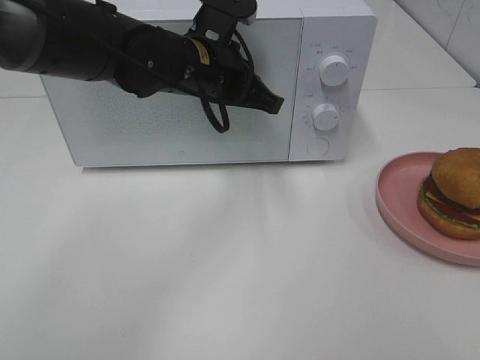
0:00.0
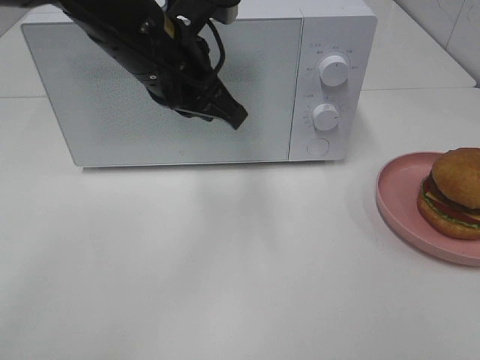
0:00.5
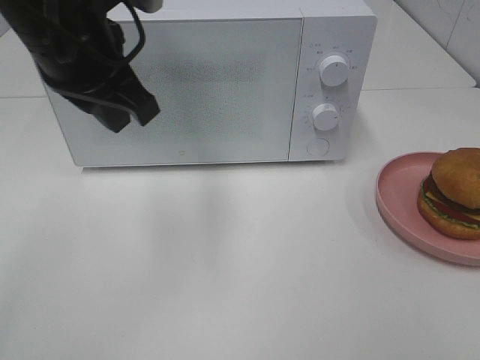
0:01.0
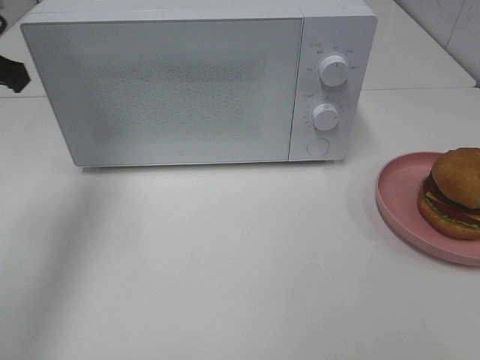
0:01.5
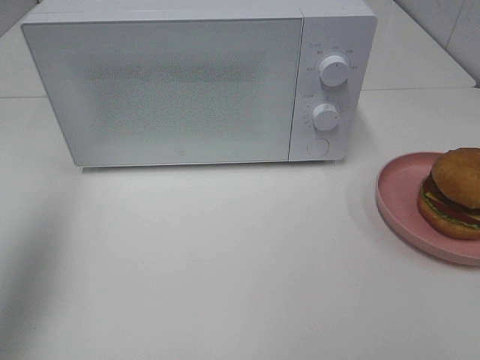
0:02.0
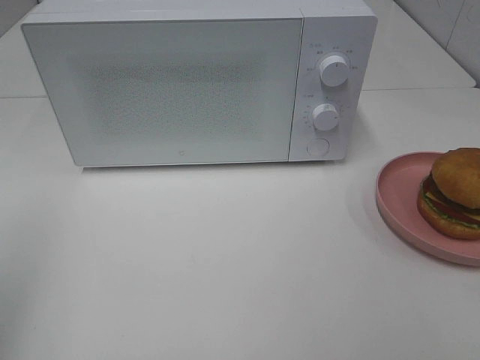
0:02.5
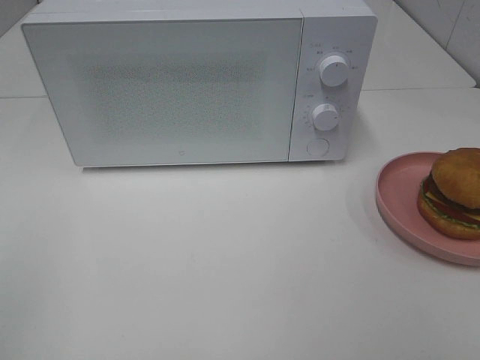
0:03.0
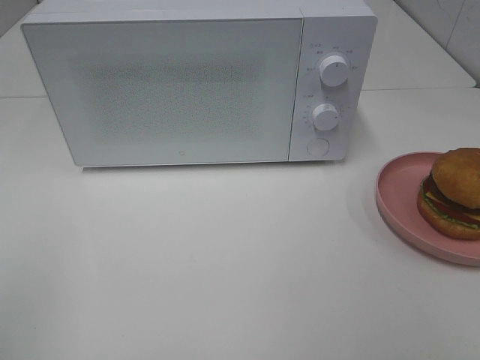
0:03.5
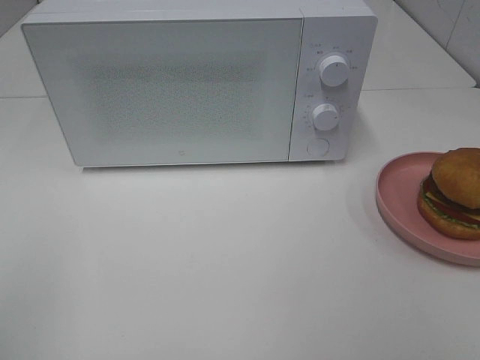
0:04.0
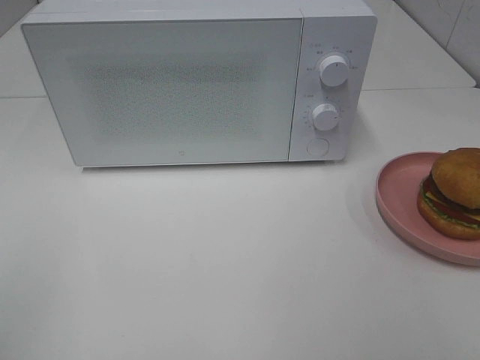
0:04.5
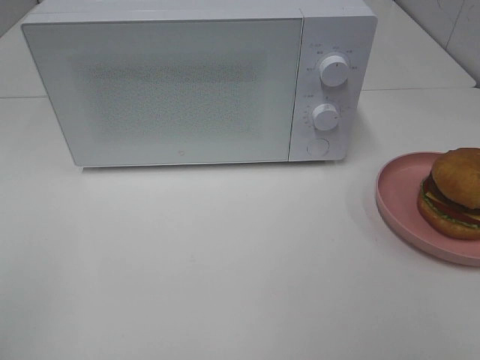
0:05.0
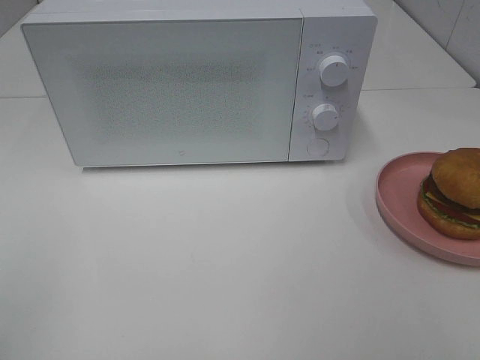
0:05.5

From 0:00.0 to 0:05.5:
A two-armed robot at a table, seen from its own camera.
Task of the whole recording: Heat the burger.
From 0:00.0 to 0:02.0: The left gripper travels to the left, backward and upward by some 35 cm, and closes up.
From 0:02.0 to 0:03.5: The left gripper is displaced backward by about 20 cm, and closes up.

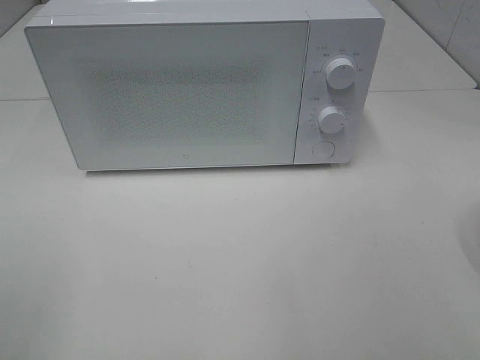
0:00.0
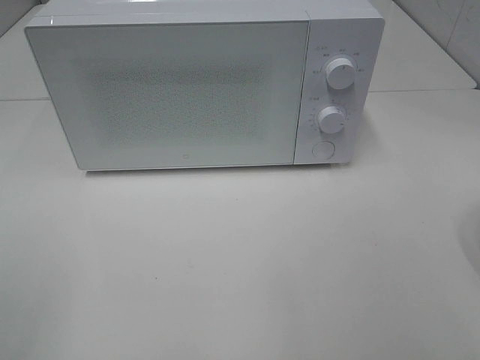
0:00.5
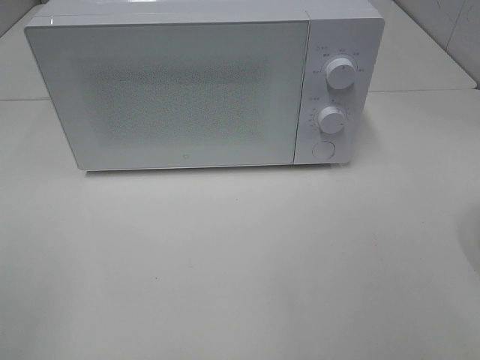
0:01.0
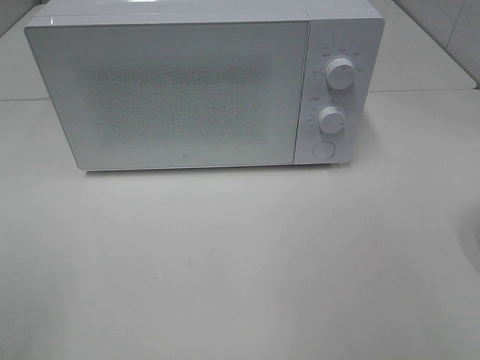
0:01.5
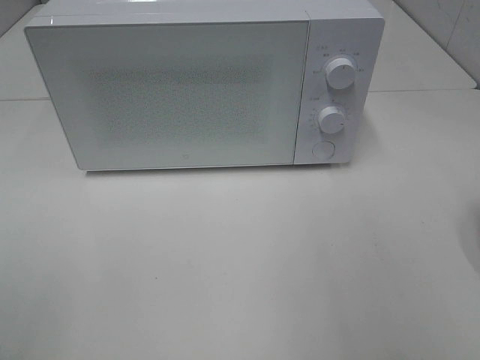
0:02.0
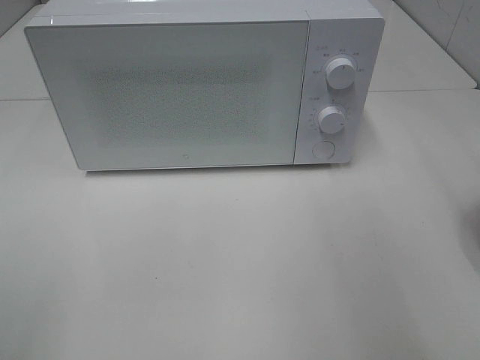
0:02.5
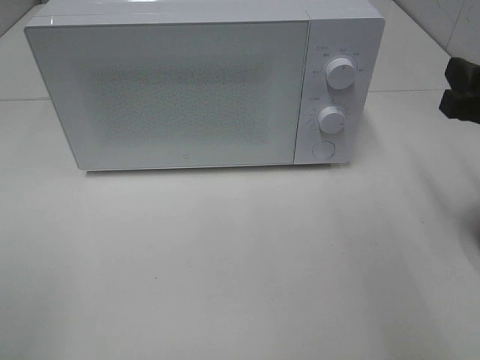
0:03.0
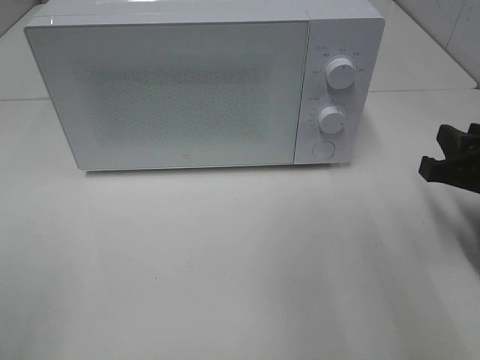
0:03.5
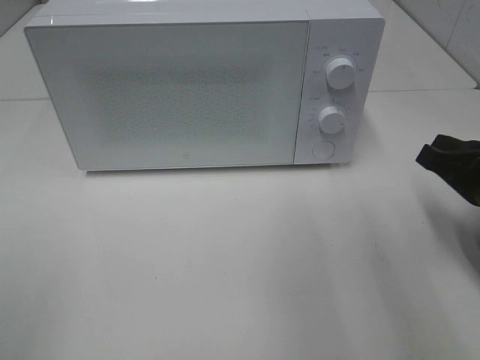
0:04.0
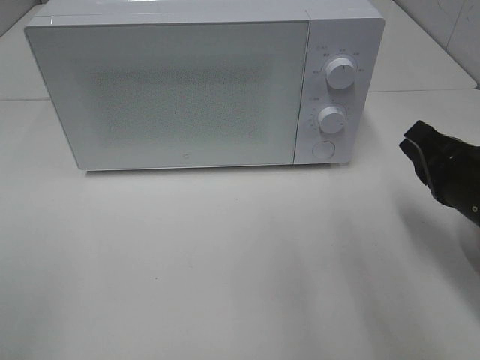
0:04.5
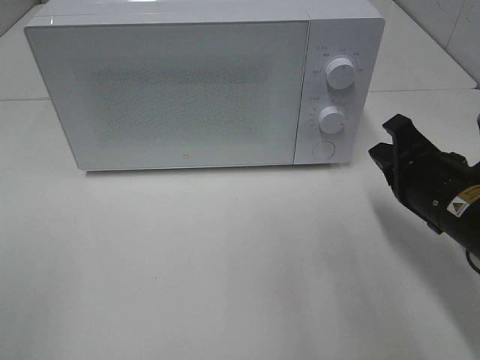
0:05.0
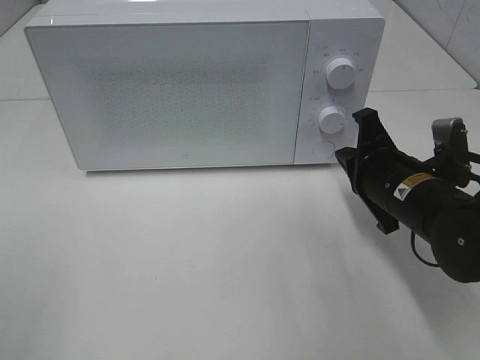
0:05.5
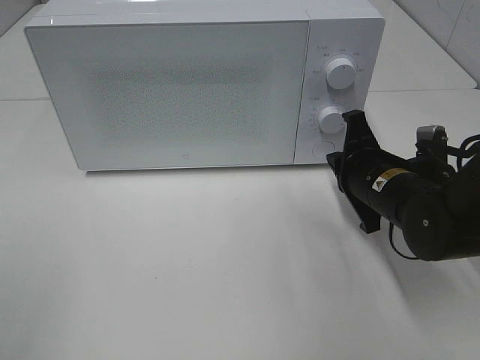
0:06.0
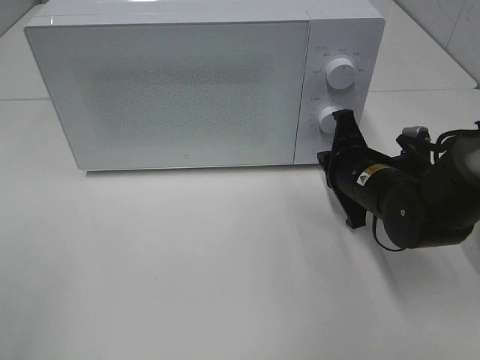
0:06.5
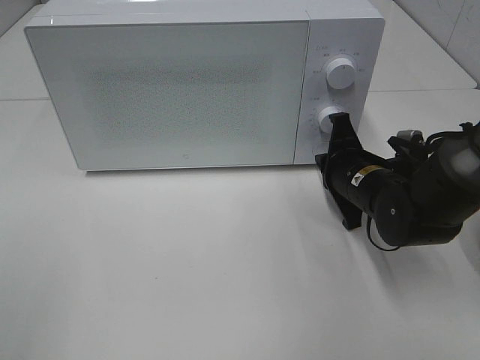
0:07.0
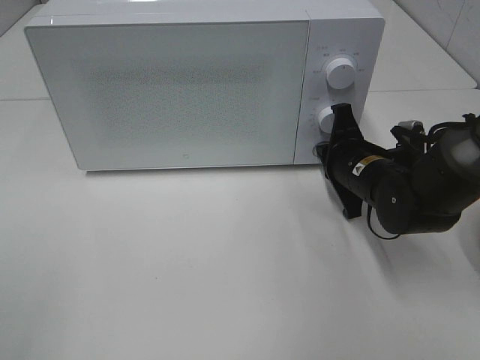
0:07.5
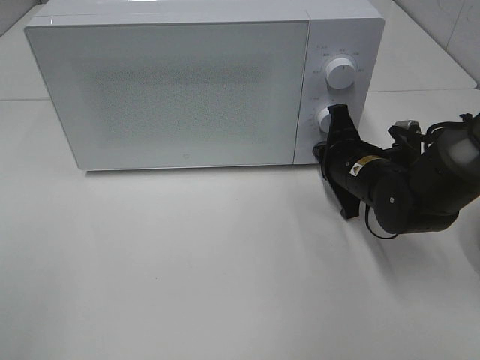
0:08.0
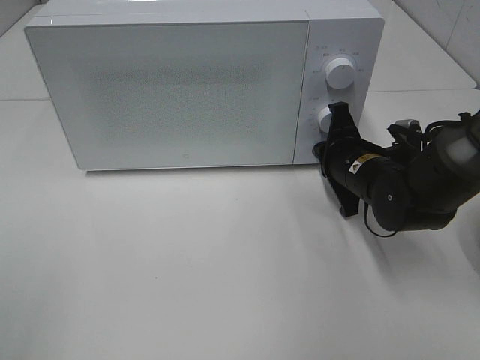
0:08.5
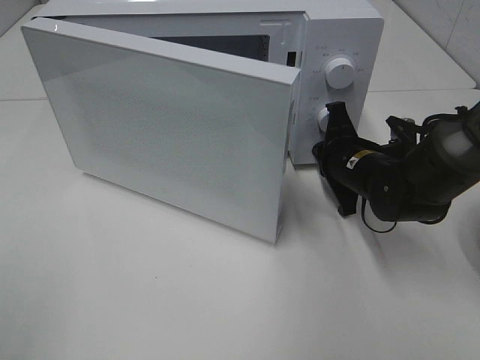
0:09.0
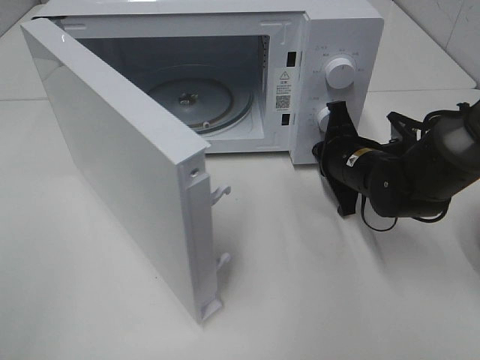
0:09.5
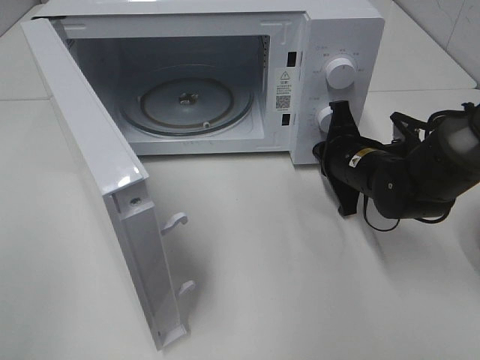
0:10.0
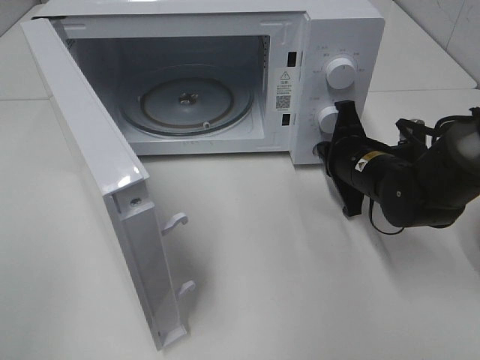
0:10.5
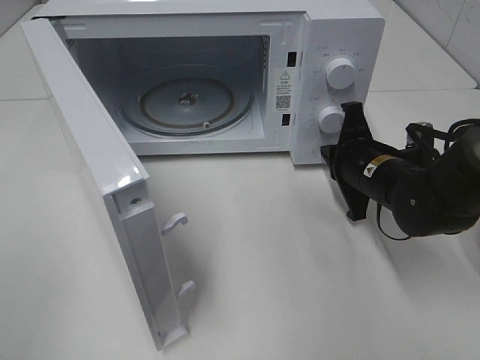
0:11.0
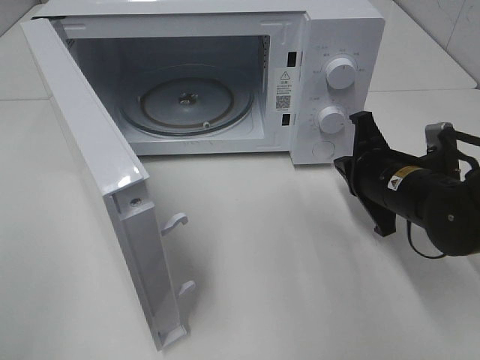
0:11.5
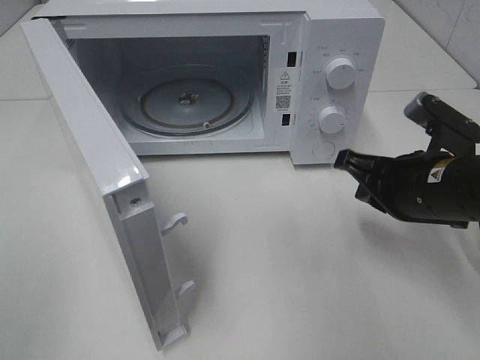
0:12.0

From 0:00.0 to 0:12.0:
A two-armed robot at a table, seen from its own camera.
Task of the whole recording: Heat the burger.
Step, from 0:00.0 to 0:11.0: Right hand: press the switch.
From 0:02.0 to 0:04.0: The right gripper travels downward and forward by approximately 20 cm, and closes its fingers.
From 0:04.0 to 0:06.0: The right gripper moves to the left, forward and downward, some 15 cm.
From 0:06.0 to 0:08.0: There are only small adjustments of the grippers.
From 0:10.0 to 0:12.0: The right gripper travels backward and upward by roughly 10 cm.

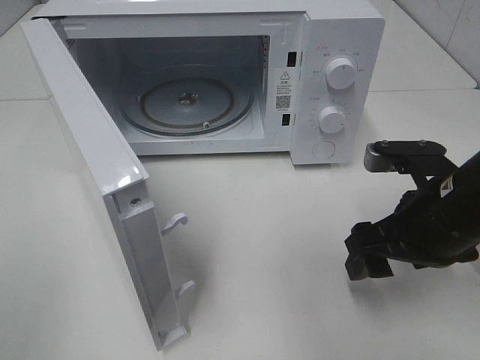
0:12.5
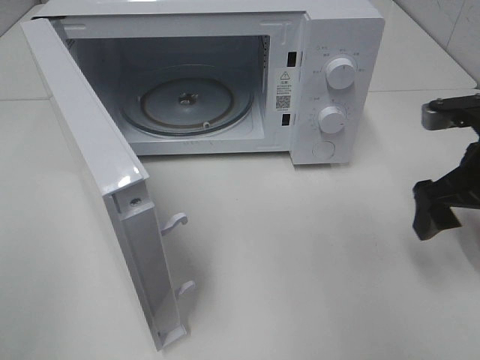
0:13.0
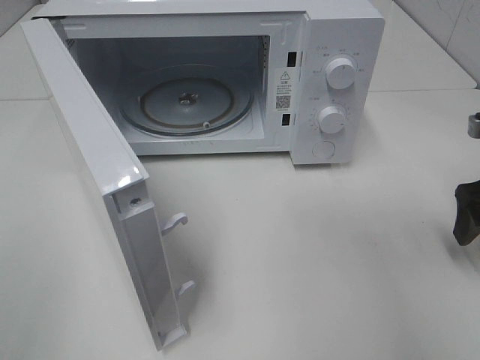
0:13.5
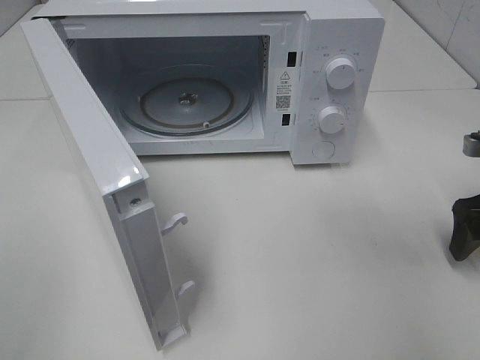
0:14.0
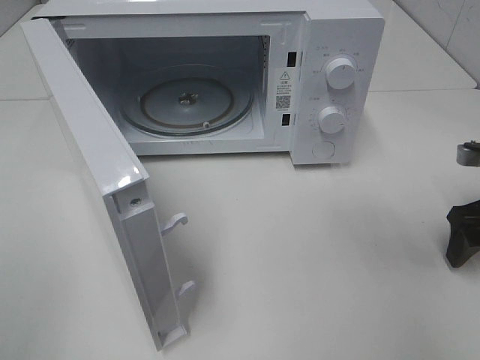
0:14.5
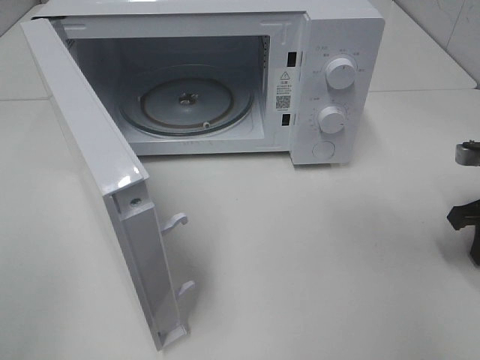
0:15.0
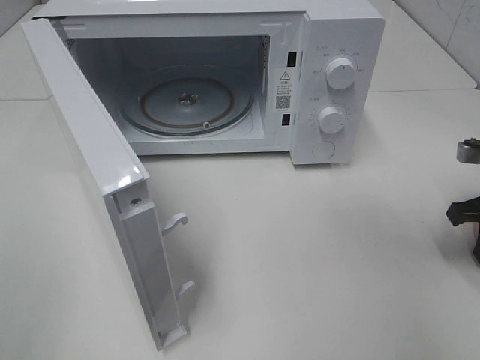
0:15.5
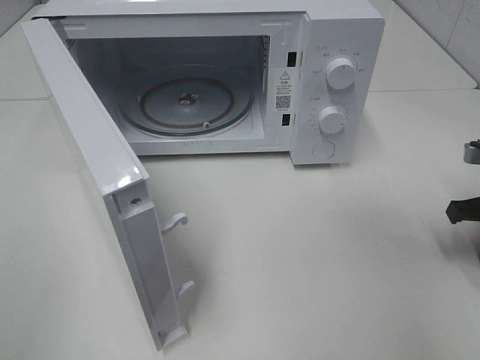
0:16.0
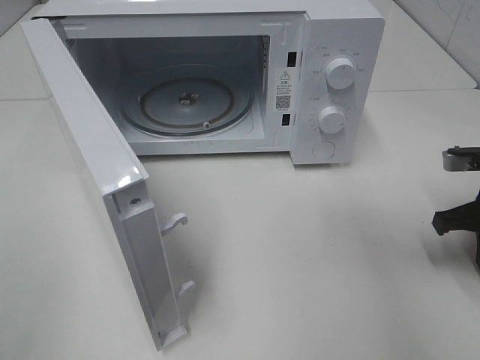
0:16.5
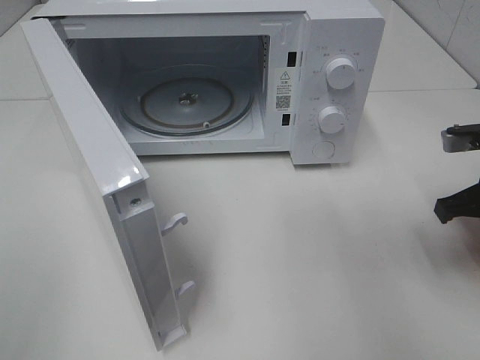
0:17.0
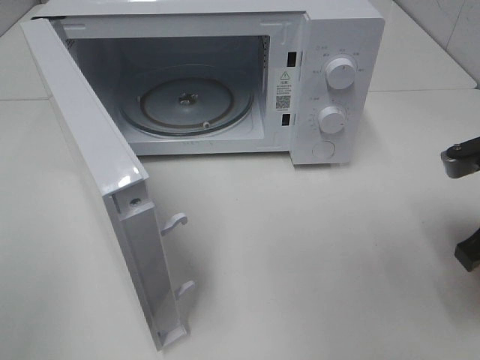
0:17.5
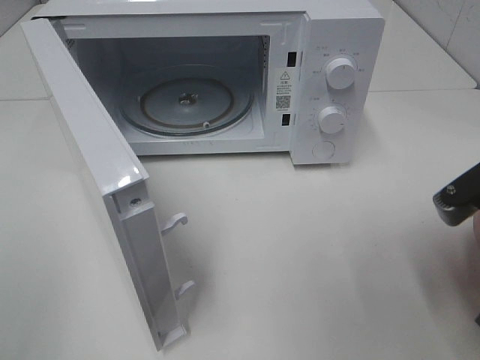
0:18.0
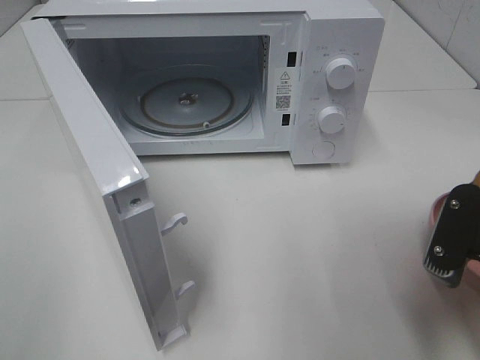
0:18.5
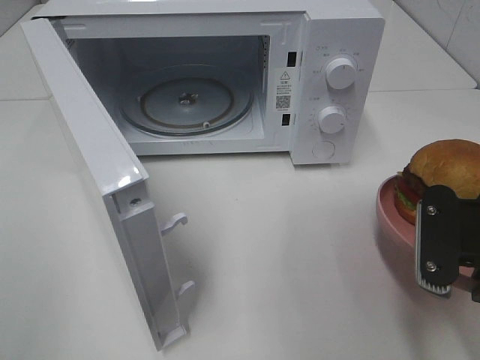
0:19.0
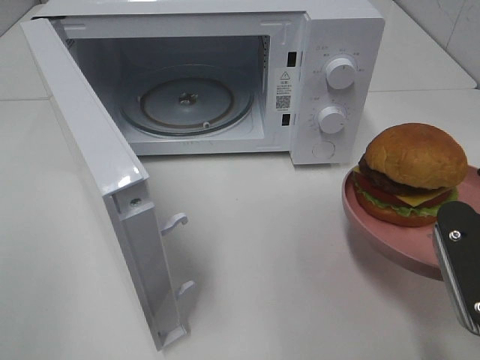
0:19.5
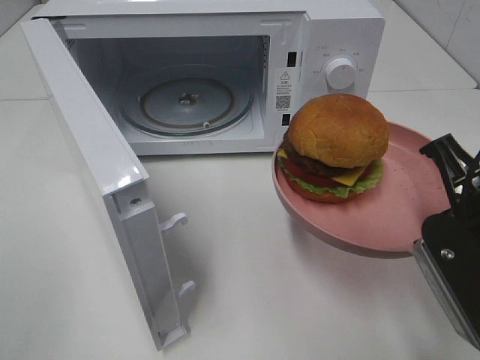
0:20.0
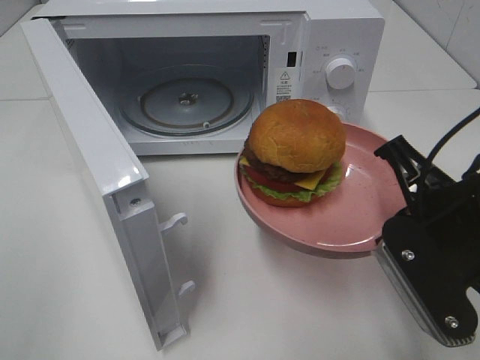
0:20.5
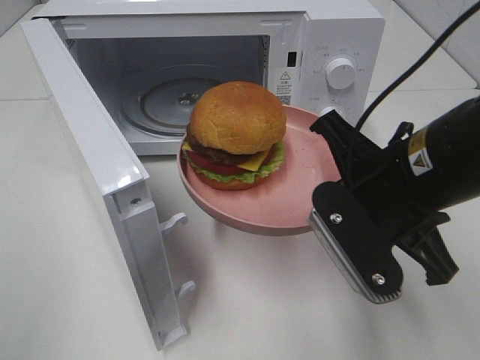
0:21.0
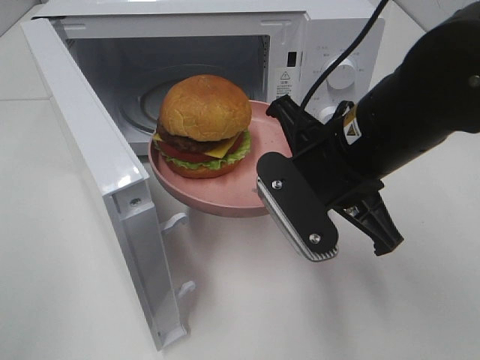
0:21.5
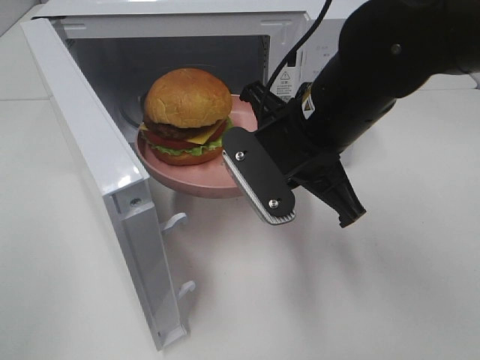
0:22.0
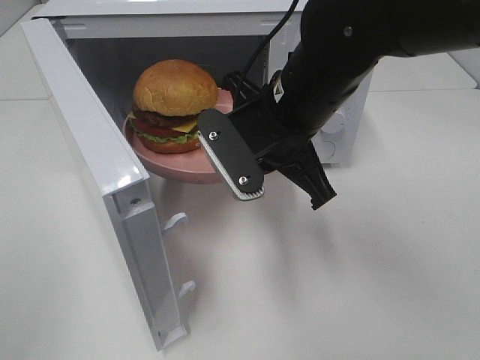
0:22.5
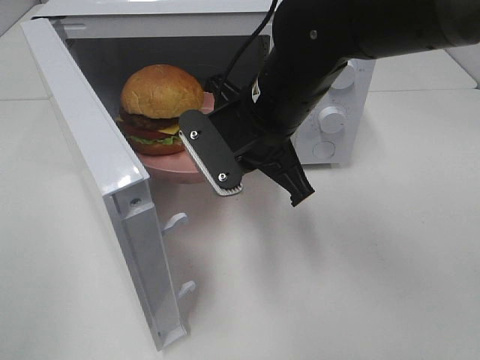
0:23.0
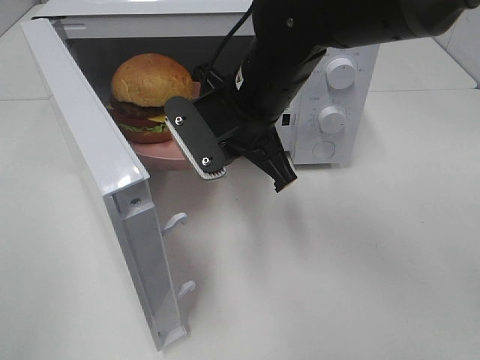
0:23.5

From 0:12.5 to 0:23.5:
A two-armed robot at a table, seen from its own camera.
Task of the whole recording: Heat the burger.
Step, from 0:12.5 to 0:16.5: Right hand: grab the plate with the hamburger.
From 0:12.5 to 0:14.5: The right gripper shifts roughly 15 cm to the right and forward.
From 0:14.5 to 0:16.0: The right gripper closes its fingers.
From 0:16.0 to 0:18.0: The right gripper goes about 15 cm backward, to the left and upward.
From 0:18.0 to 0:20.0: The right gripper shifts by some 5 cm.
From 0:20.0 to 0:21.5: The right gripper moves to the left and forward, about 15 cm.
From 0:21.5 to 0:23.5: The right gripper travels forward and to the left by some 10 cm.
